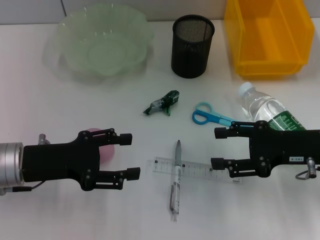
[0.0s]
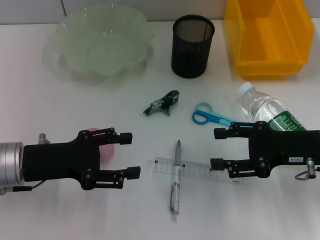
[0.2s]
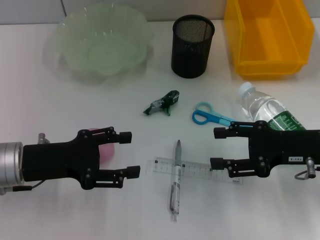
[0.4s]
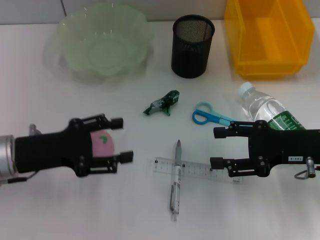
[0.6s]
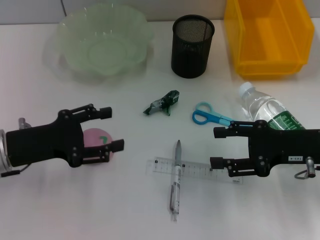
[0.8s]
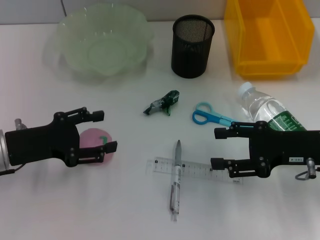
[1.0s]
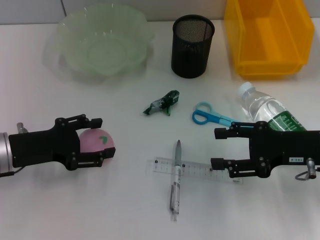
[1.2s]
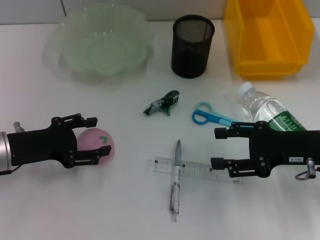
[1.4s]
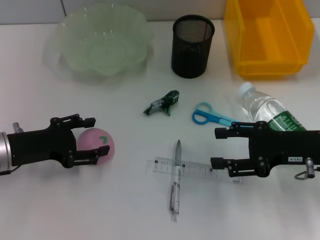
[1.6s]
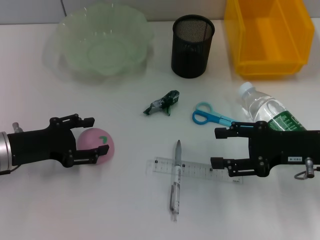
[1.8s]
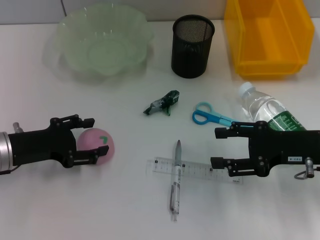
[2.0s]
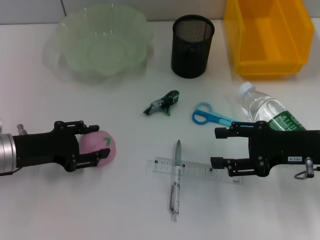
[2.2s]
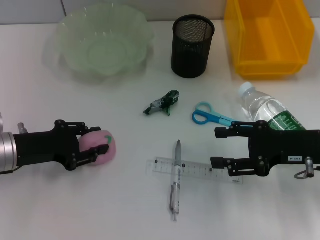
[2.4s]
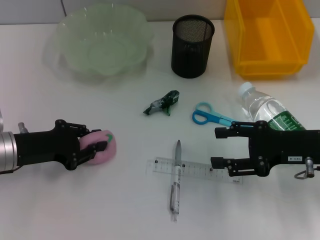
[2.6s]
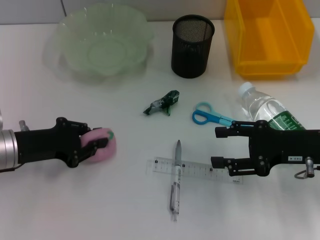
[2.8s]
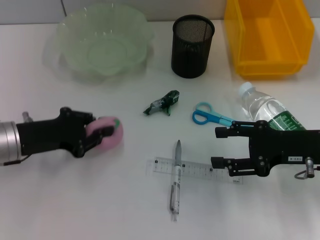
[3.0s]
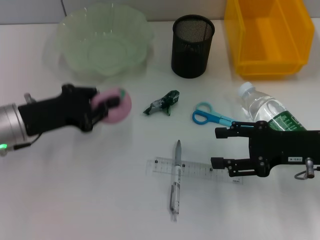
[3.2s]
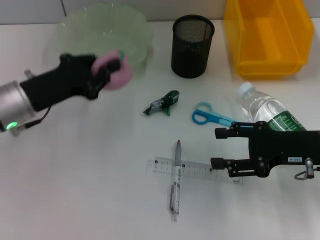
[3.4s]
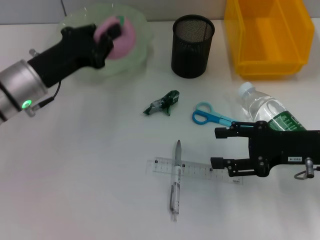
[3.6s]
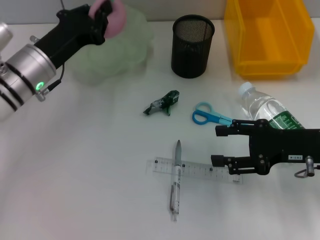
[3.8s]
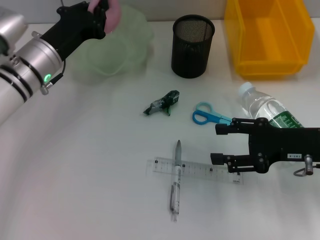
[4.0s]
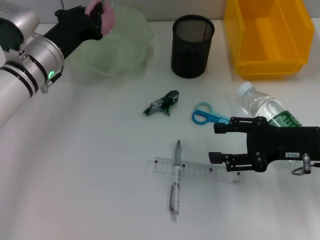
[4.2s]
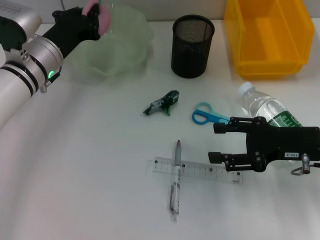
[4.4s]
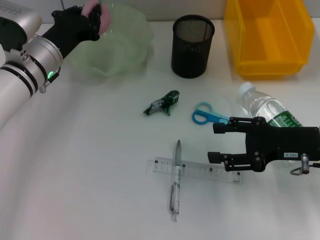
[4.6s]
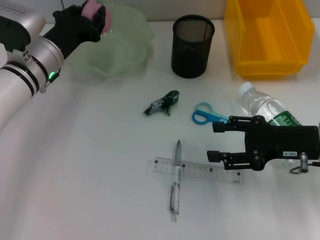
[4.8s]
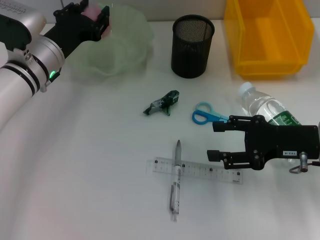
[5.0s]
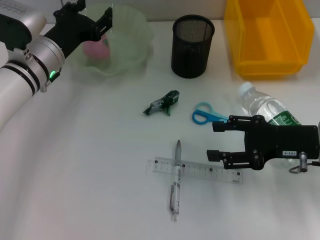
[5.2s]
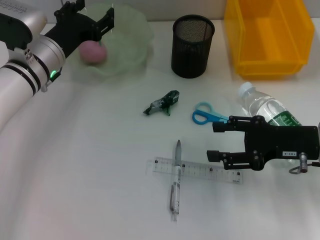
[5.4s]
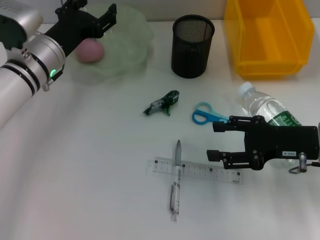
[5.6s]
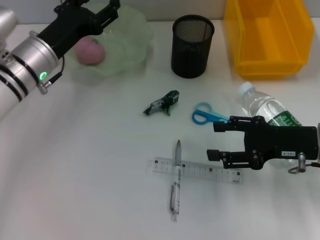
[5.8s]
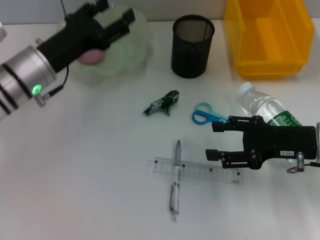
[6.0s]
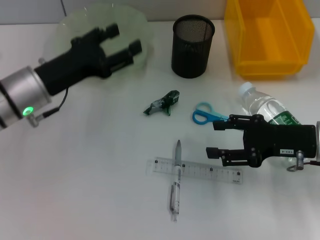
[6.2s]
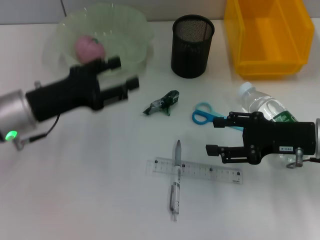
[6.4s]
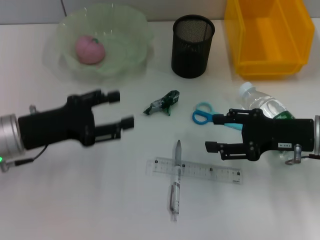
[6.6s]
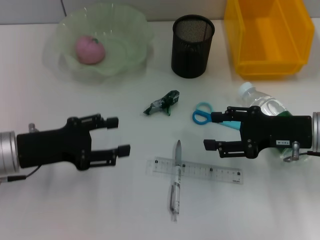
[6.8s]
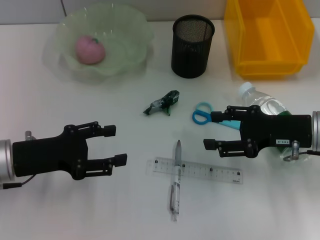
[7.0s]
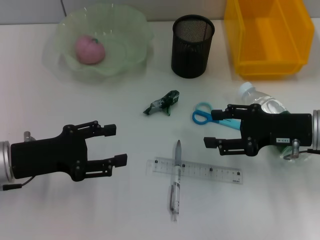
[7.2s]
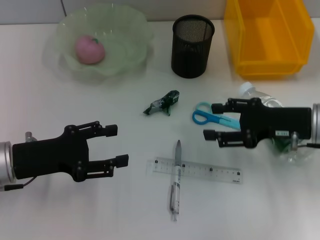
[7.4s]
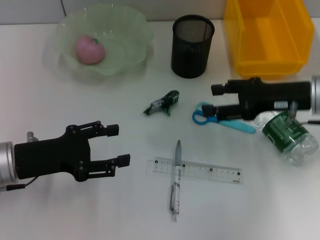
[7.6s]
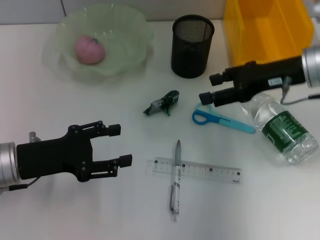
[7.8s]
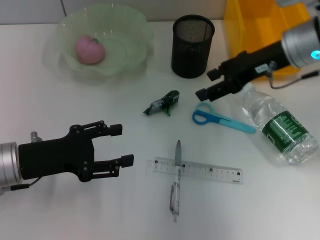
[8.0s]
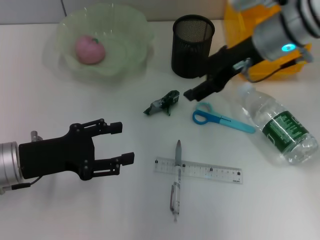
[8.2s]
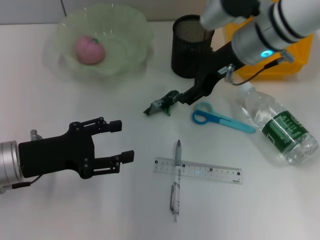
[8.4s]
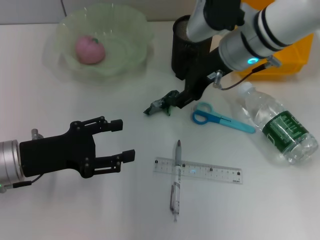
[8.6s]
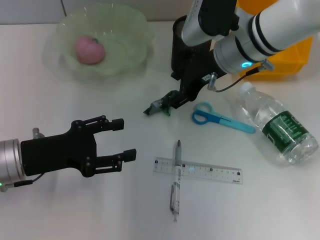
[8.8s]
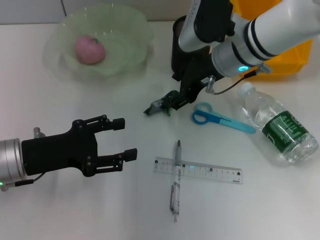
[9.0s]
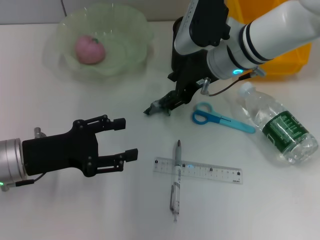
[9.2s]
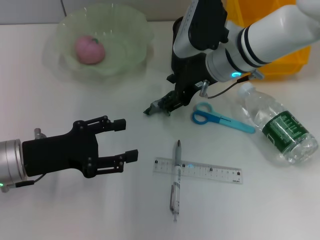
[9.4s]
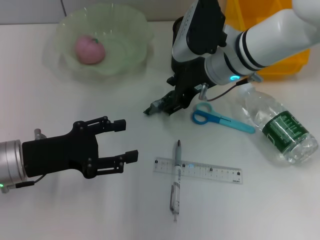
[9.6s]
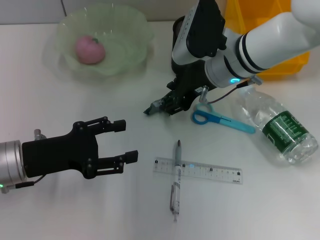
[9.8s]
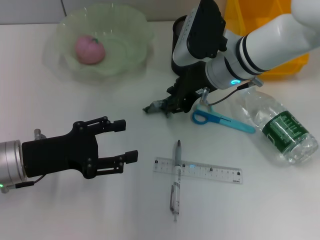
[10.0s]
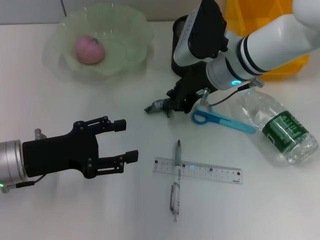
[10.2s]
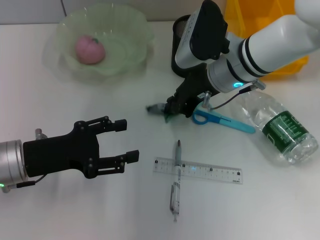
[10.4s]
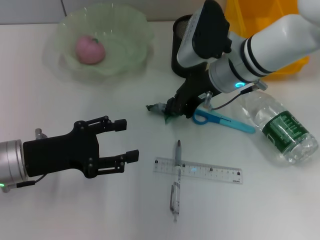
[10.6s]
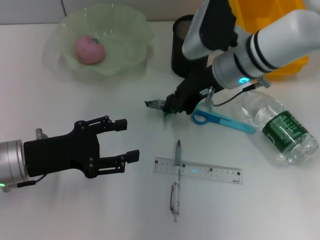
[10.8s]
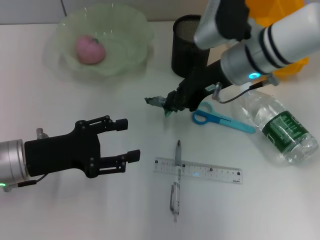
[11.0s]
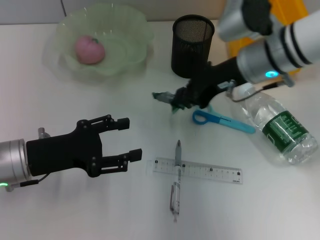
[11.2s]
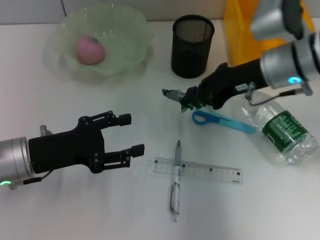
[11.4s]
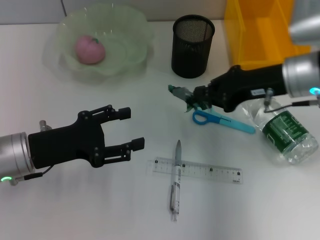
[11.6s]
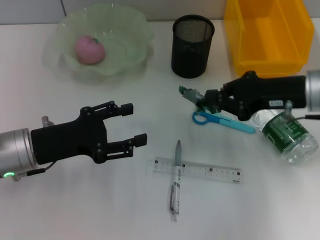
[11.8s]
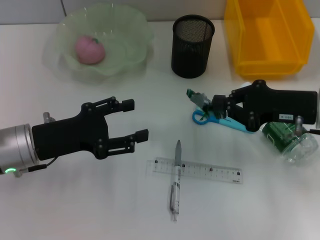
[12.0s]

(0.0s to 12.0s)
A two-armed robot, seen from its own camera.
Step, 0.0s - 2.8s: Grab the peach with the left hand.
Step, 3.0s - 5.2s: Place the peach into the fruit bowl with the left hand.
Step, 5.4s - 10.6s: Grab the plastic with the right hand.
1.6s - 3.0s: The left gripper closes up.
3.0s - 4.4s: The left gripper heads forward and to the right, covering some 10 cm.
4.4s - 6.0s: The left gripper opens its fingers.
6.0s - 7.6s: The right gripper is displaced forward by roughly 5 cm, while the left gripper moves backward and to the left, about 10 cm.
7.6s - 9.0s: The right gripper shifts about 15 cm to the left and forward.
9.0s - 10.4s: The right gripper closes.
10.4s - 12.0s: The right gripper is displaced to the right and backward by some 15 cm.

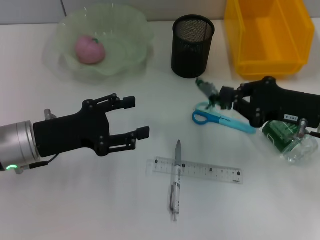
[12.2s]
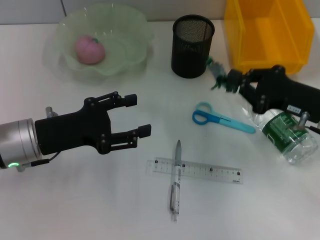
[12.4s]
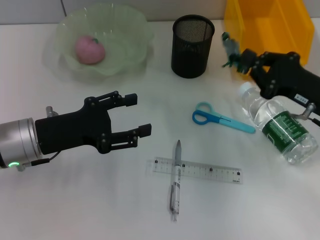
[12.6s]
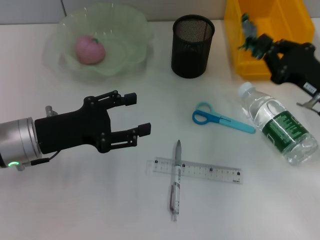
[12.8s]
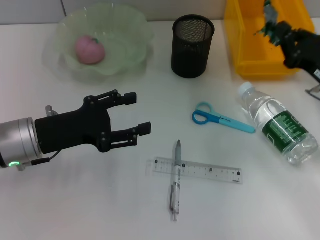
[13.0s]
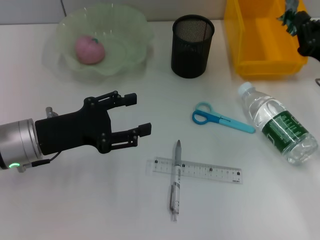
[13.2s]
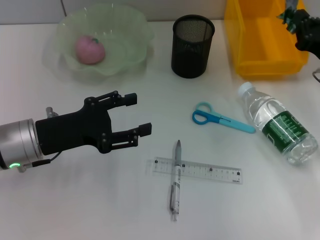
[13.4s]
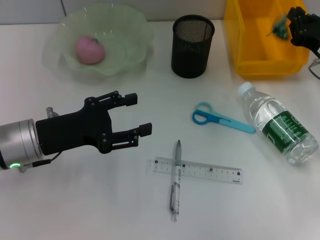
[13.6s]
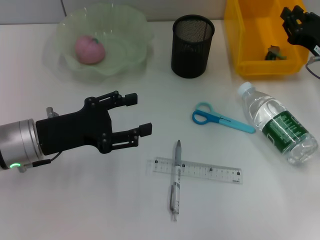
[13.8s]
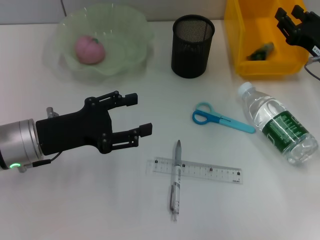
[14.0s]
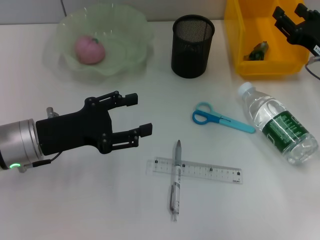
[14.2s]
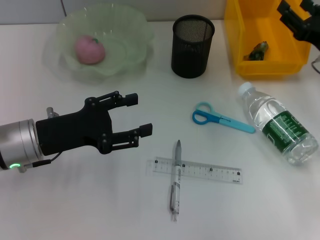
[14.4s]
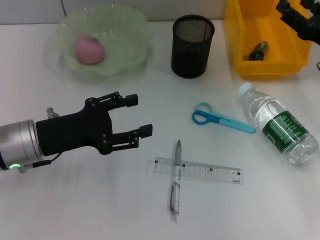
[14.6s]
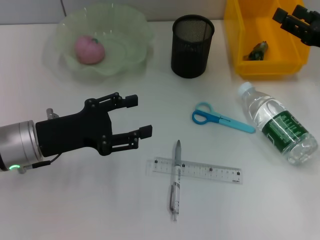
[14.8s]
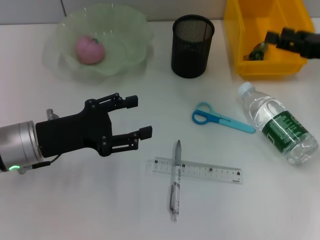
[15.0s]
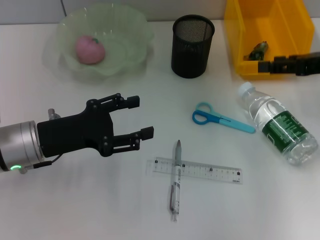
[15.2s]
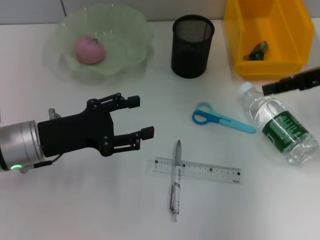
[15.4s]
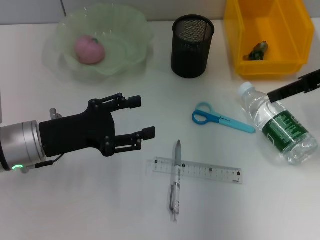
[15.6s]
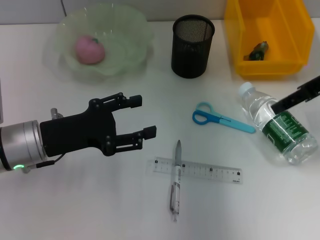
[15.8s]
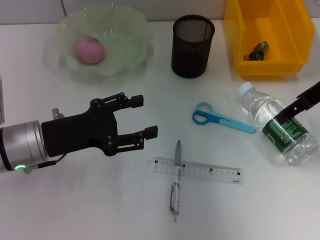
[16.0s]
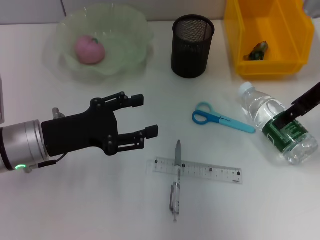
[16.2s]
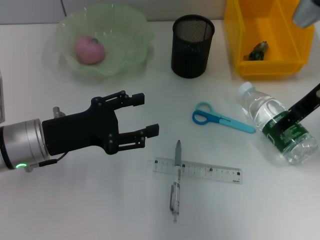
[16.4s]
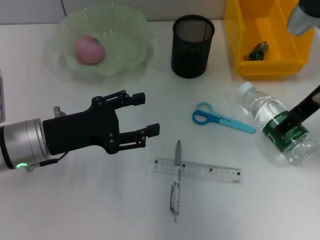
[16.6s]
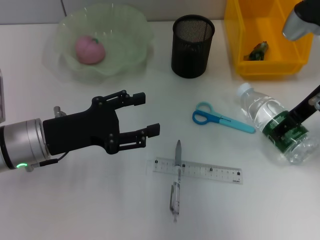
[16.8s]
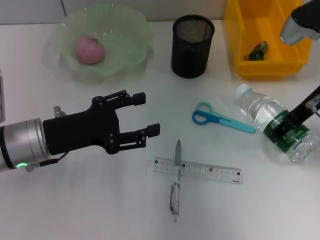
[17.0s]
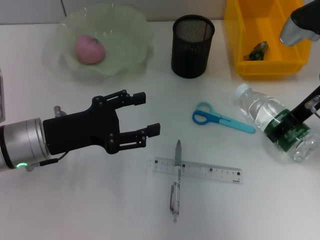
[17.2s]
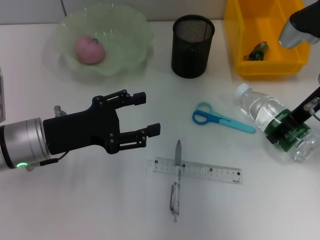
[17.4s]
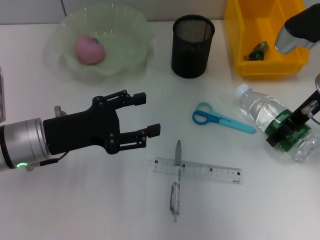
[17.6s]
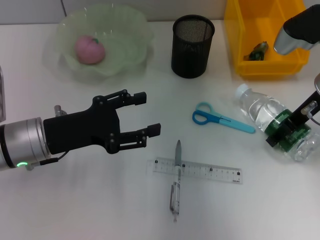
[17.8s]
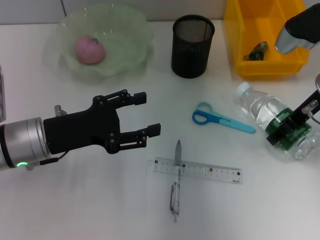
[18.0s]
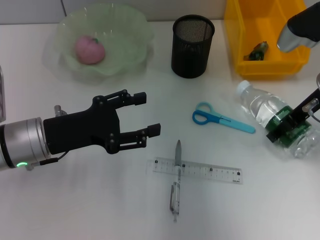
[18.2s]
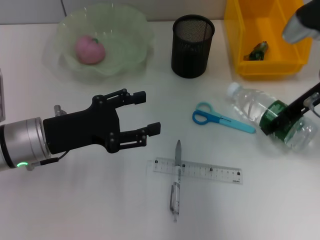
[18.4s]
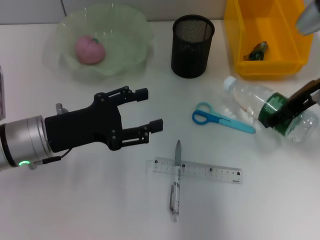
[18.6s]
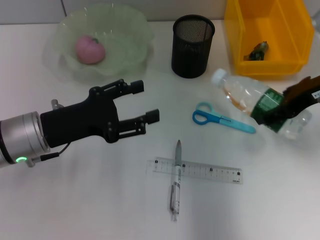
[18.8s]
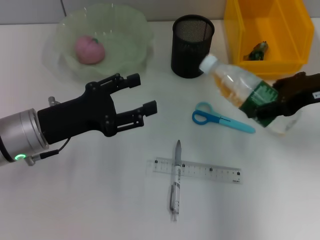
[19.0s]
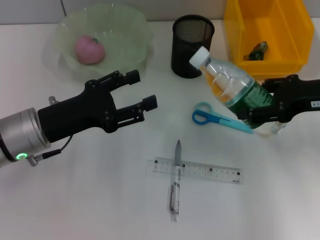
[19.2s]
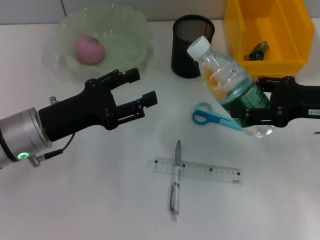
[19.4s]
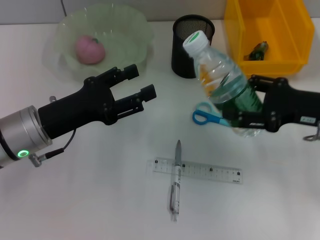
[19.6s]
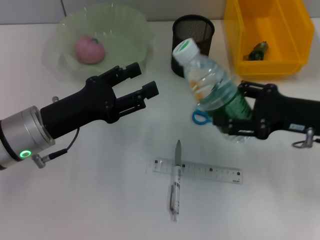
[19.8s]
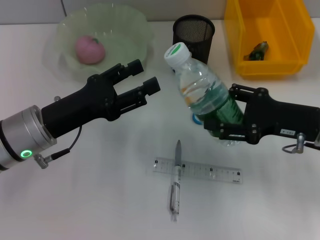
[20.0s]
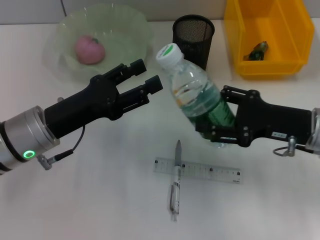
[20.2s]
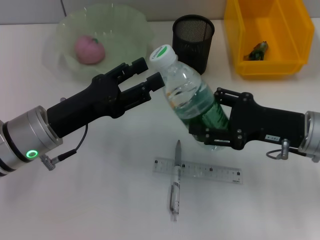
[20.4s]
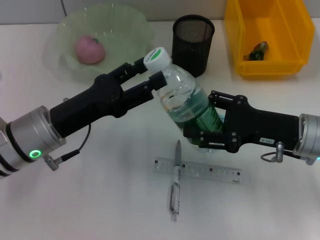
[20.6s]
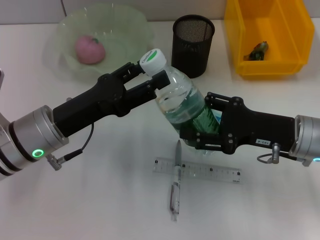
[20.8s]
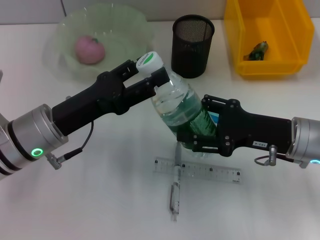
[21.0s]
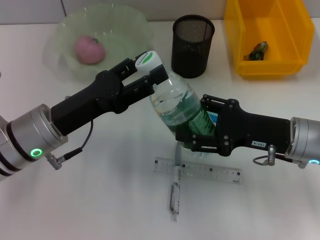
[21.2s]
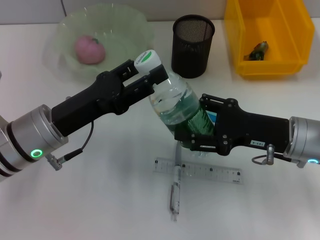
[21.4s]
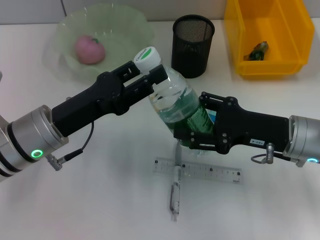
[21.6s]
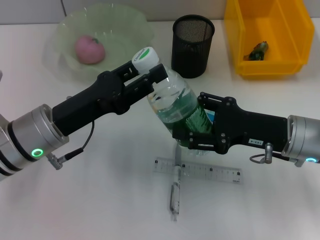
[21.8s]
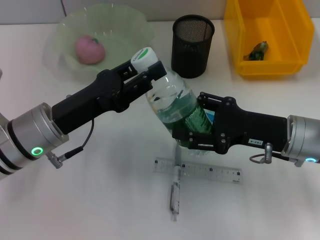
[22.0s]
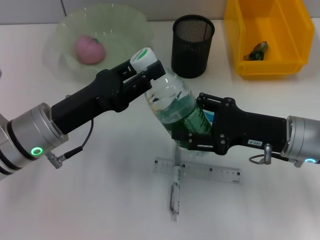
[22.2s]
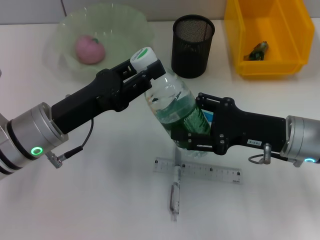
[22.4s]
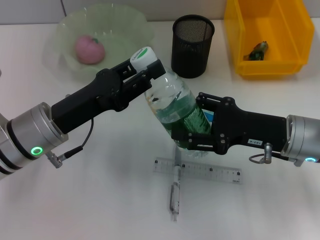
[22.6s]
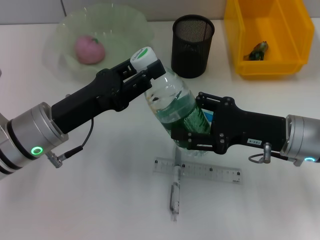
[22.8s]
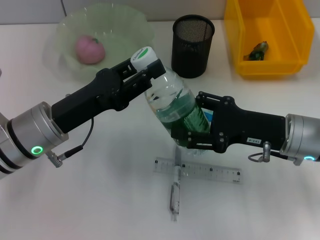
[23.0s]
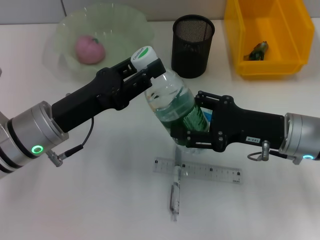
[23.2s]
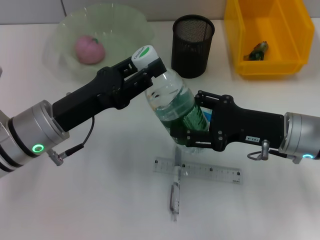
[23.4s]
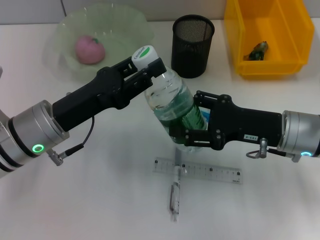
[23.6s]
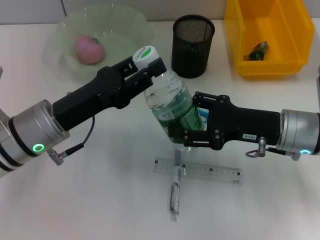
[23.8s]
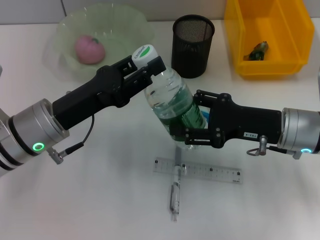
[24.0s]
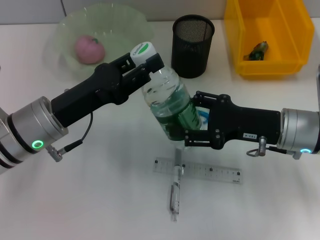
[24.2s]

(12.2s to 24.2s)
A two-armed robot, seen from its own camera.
Step, 13.8s - 18.2s: Grab the water bottle with the right hand.
Step, 18.4s - 24.2s: Pass the water bottle from the right hand to the left hand.
12.2s - 13.8s: The right gripper is displaced forward by about 5 cm.
13.8s - 15.2s: The right gripper travels upward by roughly 10 cm, and opens.
15.2s - 16.6s: The right gripper shifts approximately 5 cm to the left.
16.6s - 18.2s: The grippers stay close to where they were, moving slightly.
18.2s - 19.8s: The right gripper travels backward and downward by about 10 cm.
19.8s - 21.2s: The right gripper changes place by approximately 5 cm.
21.2s - 22.6s: The left gripper closes.
22.6s - 24.2s: There are only small adjustments of the grippers.
